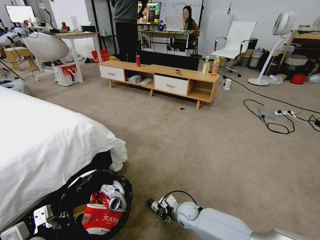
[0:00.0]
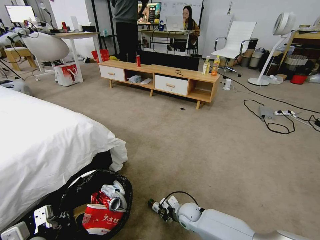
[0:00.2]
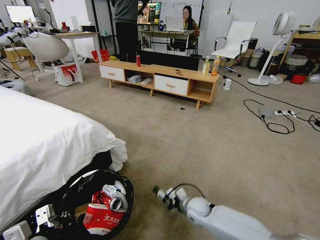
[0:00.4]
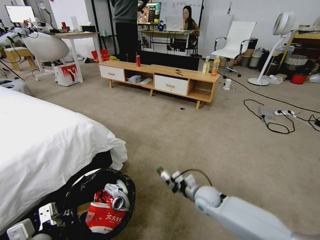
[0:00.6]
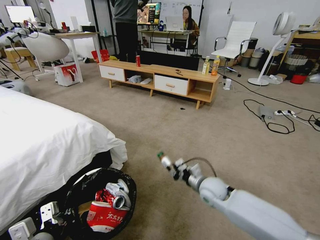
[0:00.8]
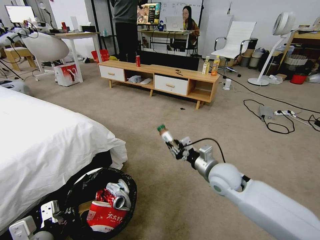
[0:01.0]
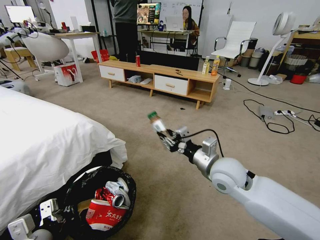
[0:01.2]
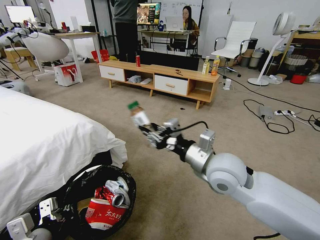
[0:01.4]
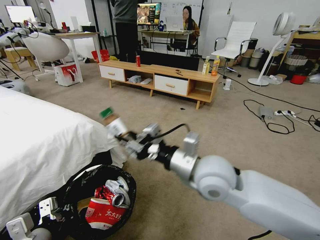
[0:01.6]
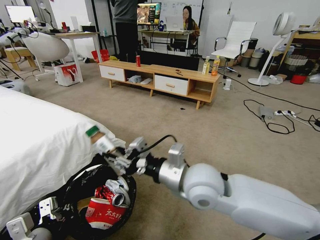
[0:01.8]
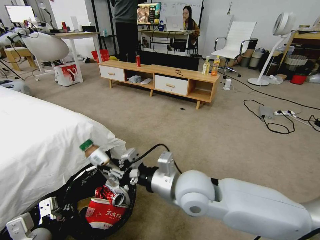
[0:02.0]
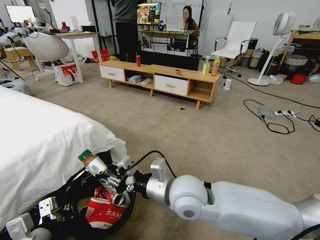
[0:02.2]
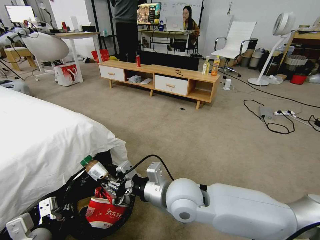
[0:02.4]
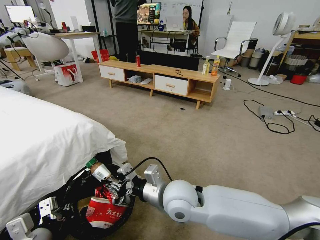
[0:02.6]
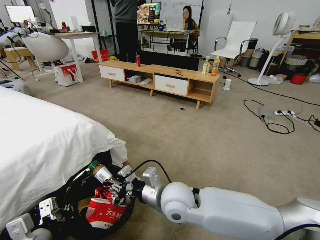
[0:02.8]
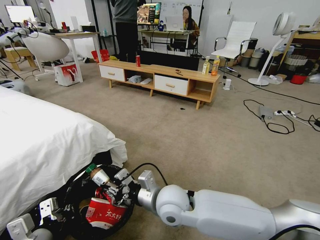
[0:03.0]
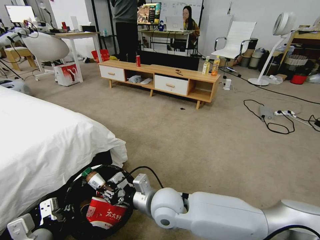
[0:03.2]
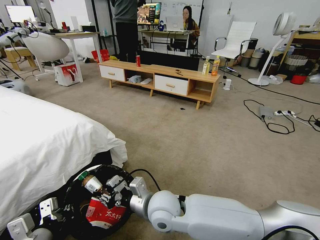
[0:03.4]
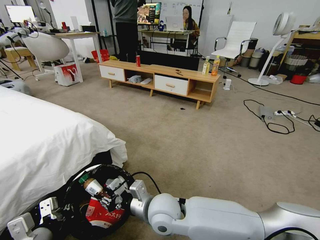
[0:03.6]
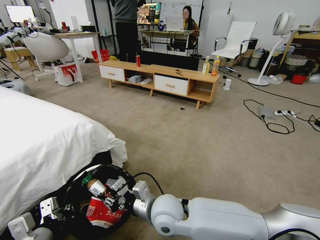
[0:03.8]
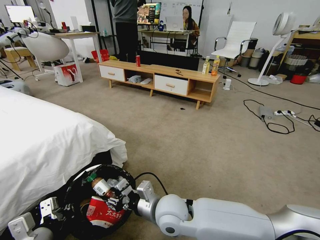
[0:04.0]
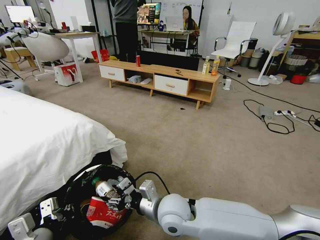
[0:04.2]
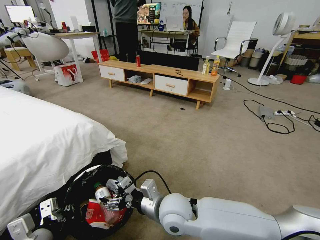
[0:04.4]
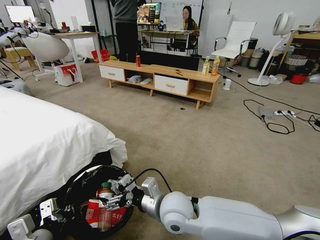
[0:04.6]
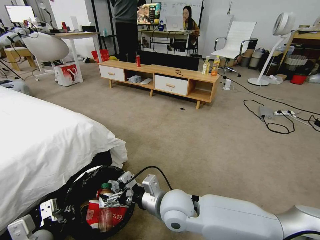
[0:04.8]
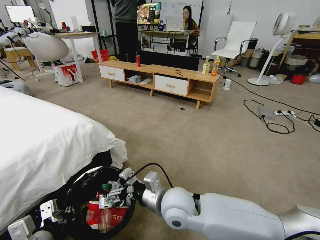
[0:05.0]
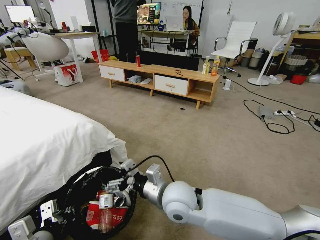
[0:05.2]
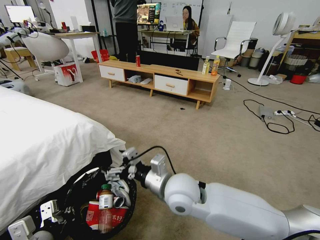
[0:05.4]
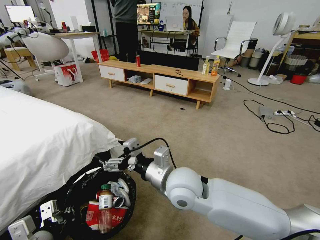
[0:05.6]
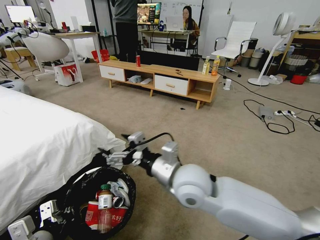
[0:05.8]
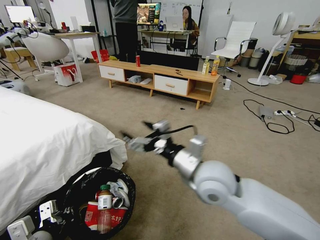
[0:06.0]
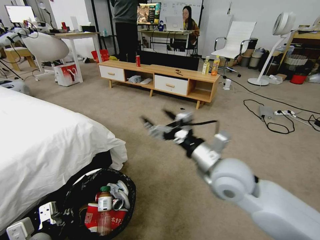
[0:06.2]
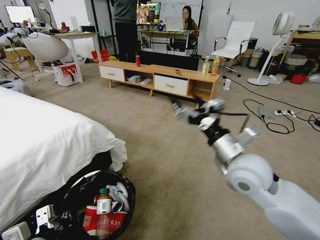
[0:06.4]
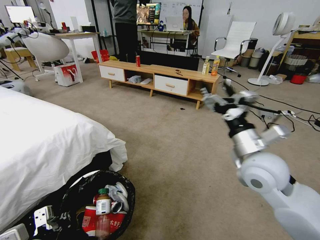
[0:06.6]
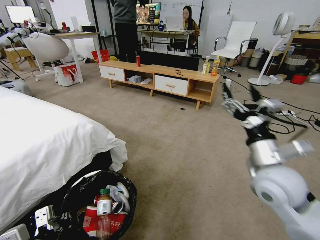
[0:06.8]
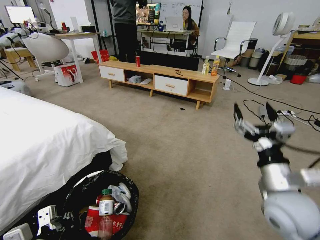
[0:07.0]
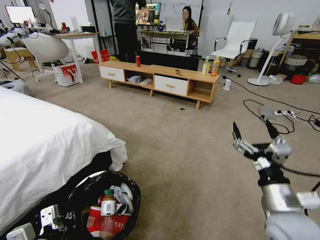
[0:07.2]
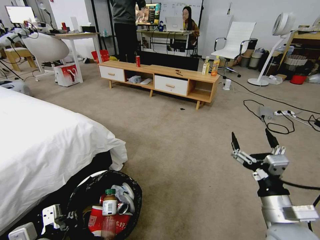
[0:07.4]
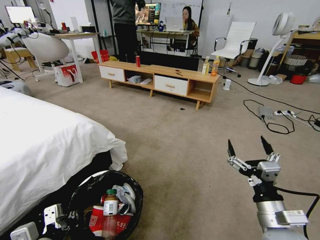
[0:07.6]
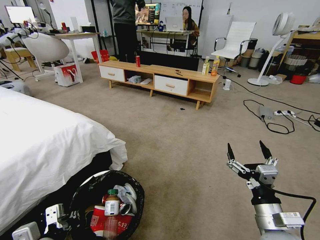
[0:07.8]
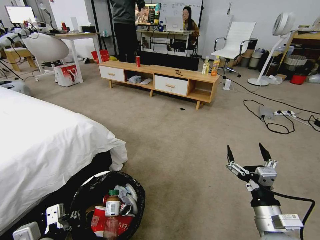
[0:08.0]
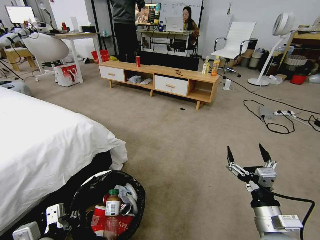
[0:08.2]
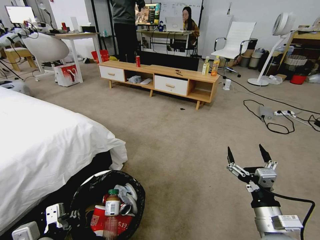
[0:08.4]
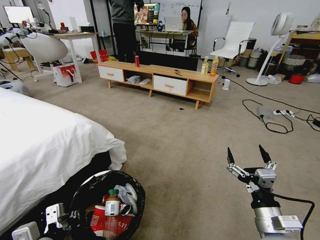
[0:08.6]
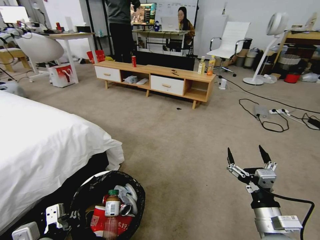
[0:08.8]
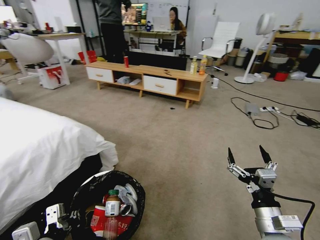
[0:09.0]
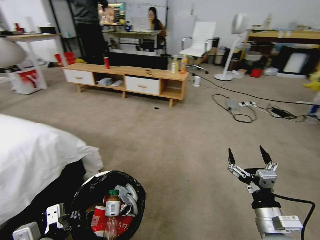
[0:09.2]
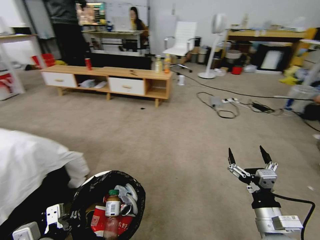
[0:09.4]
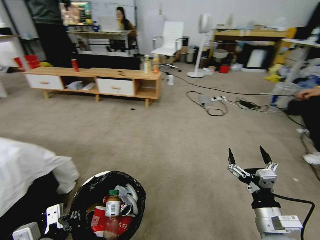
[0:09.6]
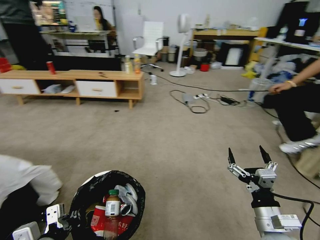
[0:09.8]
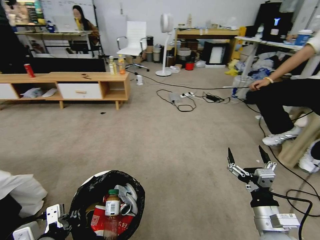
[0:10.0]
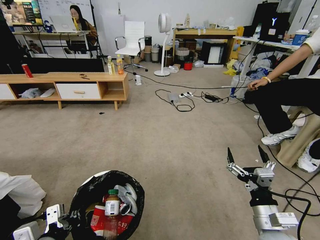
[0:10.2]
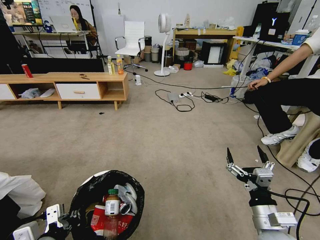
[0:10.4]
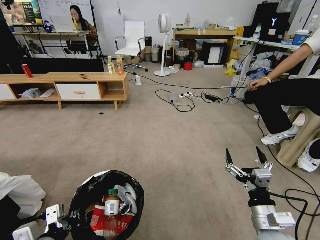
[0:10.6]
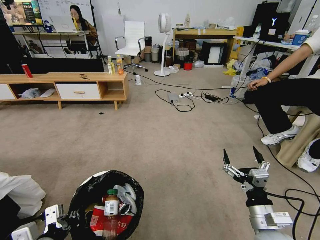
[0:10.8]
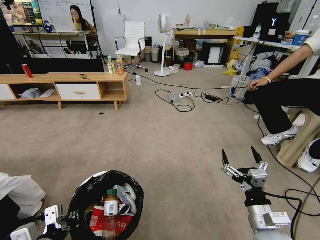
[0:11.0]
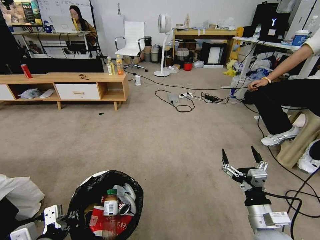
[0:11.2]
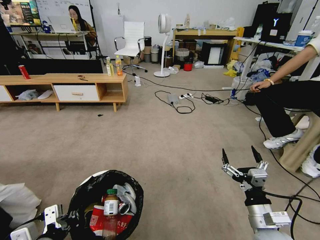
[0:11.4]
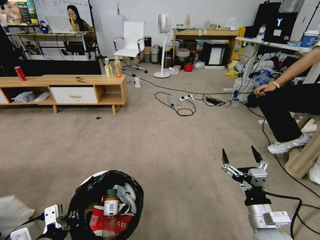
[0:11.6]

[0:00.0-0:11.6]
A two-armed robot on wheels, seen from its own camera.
Task of the whole recording: Pick up the trash bin and place the garbage on the floor into it.
0:00.0 to 0:01.4: The right gripper goes roughly 35 cm upward.
0:01.4 to 0:02.8: The right gripper goes approximately 15 cm to the left and downward.
0:02.8 to 0:04.4: The right gripper opens its fingers.
0:04.4 to 0:05.8: The right gripper moves upward, approximately 10 cm.
0:05.8 to 0:07.2: The right gripper heads to the right, covering some 20 cm.
0:07.2 to 0:08.8: The right gripper shifts about 5 cm downward.
